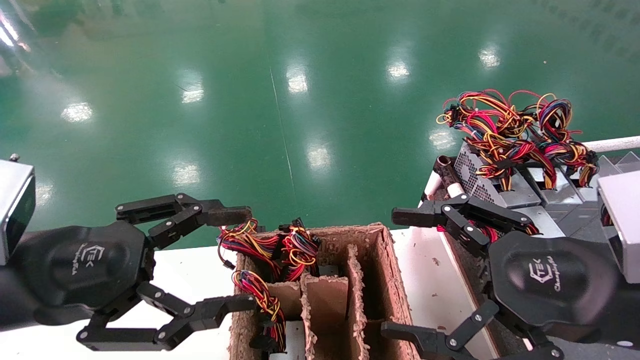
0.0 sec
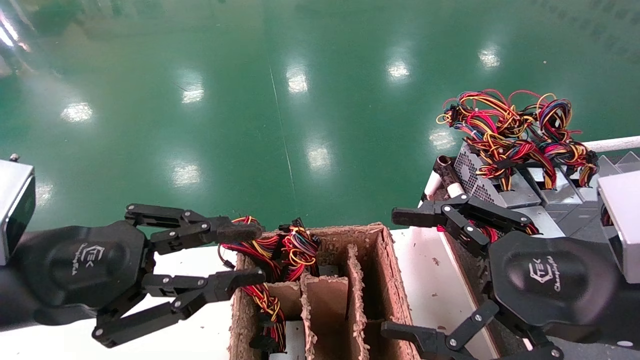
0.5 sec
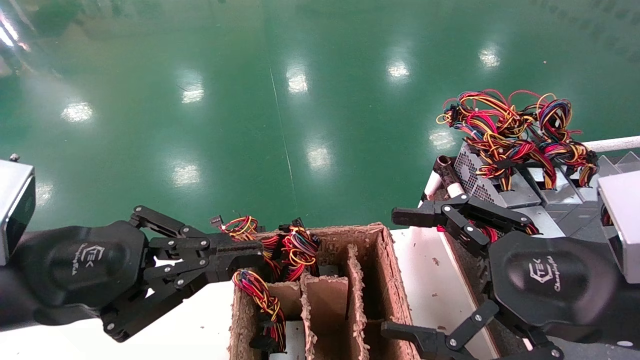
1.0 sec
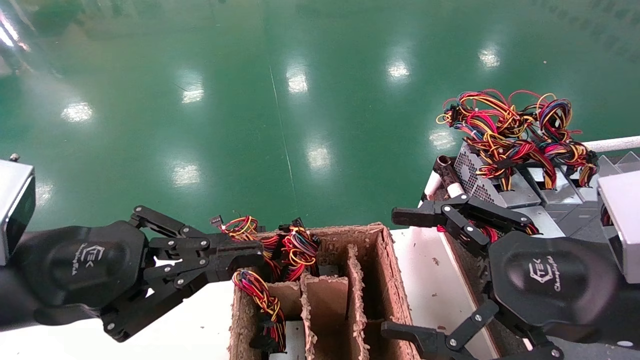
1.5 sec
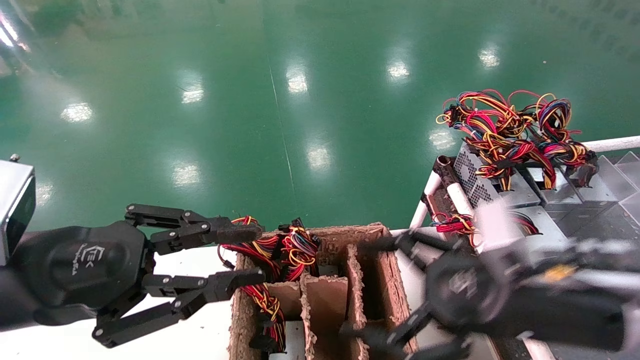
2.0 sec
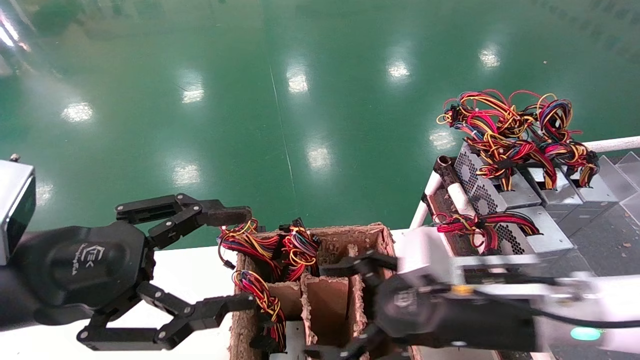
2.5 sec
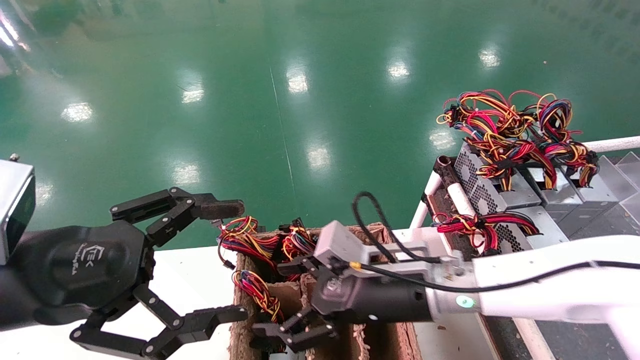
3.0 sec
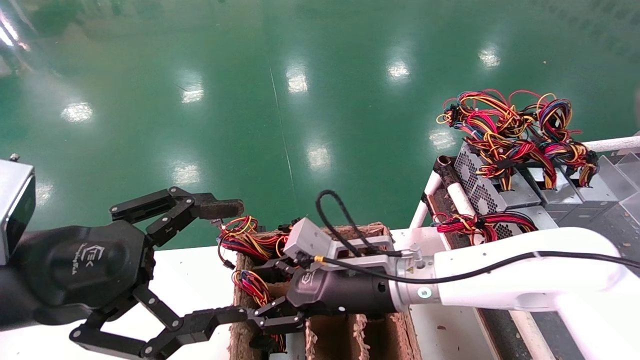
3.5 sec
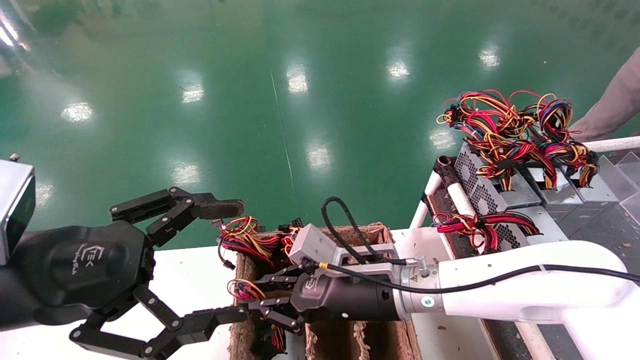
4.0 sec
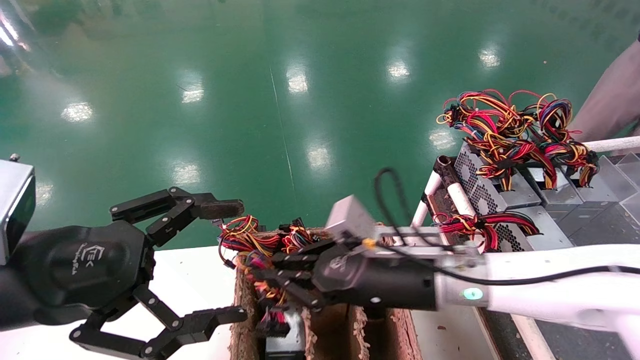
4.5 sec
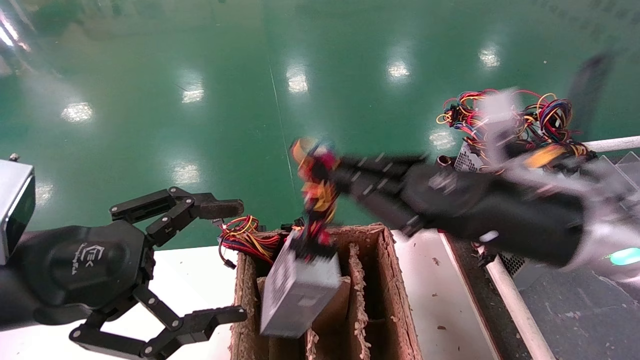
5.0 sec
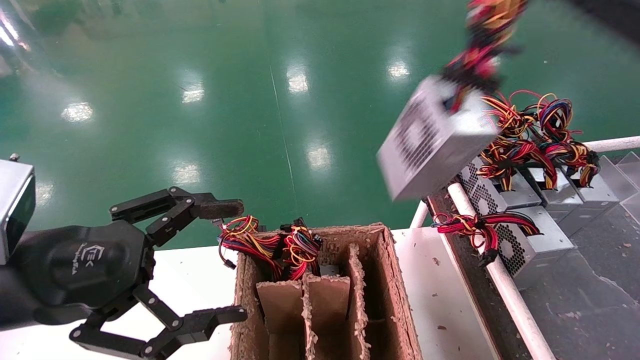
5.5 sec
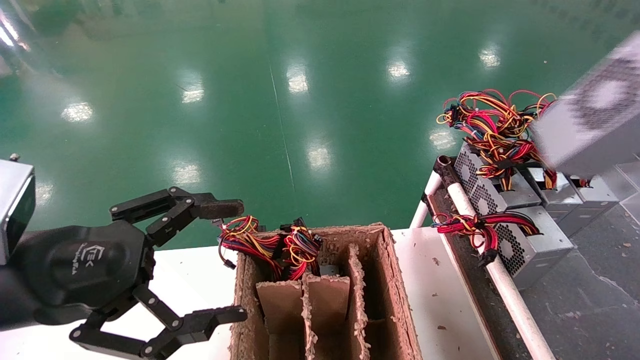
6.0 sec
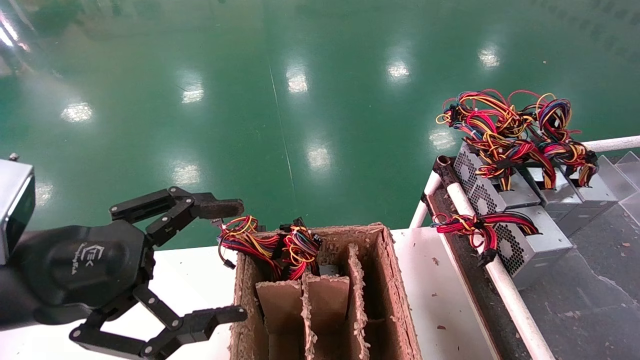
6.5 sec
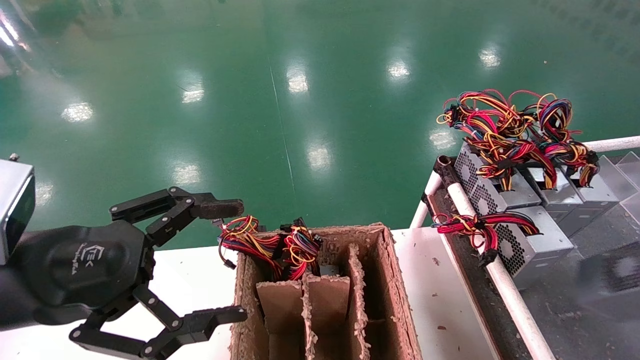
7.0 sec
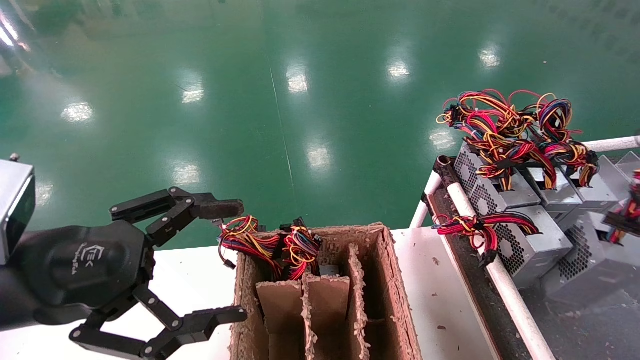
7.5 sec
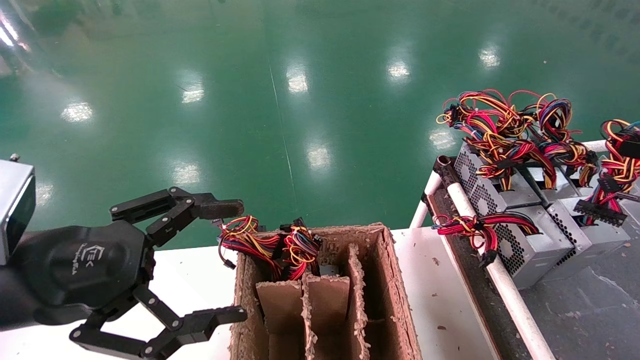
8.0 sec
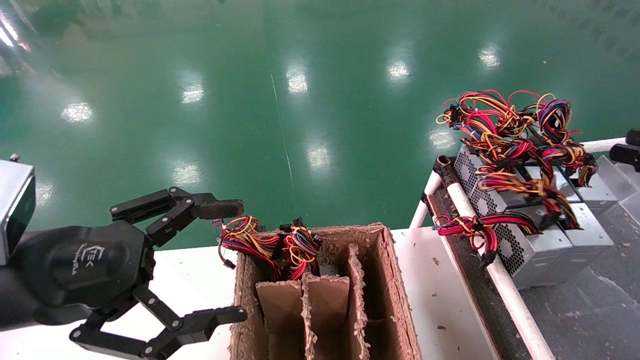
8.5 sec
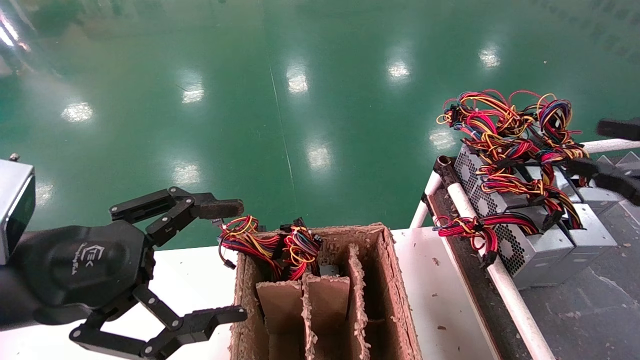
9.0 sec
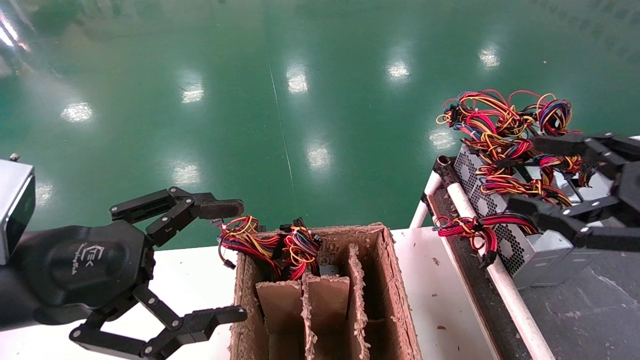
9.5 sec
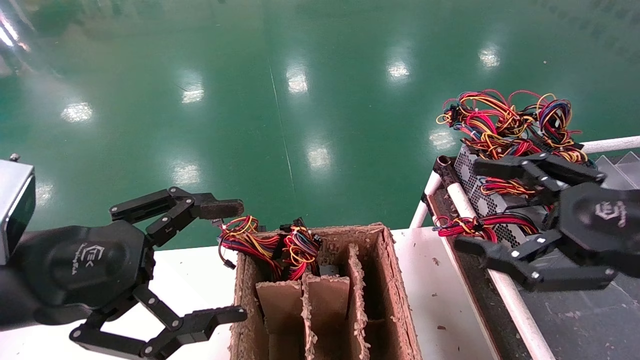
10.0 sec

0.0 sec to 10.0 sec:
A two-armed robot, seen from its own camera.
Step, 2.0 sec to 4.0 sec: Grab and lift the power supply from the large box.
Step, 4.5 sec to 8.0 sec: Place the power supply on the operating table.
0.0 sec to 2.0 sec: The right gripper ends up about 5 cm from where it was; the left gripper closes.
2.0 sec to 4.0 sec: The right gripper travels to the left, forward and downward by some 20 cm, and closes its fingers, while the left gripper opens.
4.0 sec to 6.0 sec: The right gripper travels to the right, upward and backward by some 50 cm.
6.0 sec to 8.0 sec: The right gripper moves downward and forward, roughly 15 cm.
8.0 sec to 10.0 sec: The right gripper travels to the left by approximately 15 cm, and opens up.
